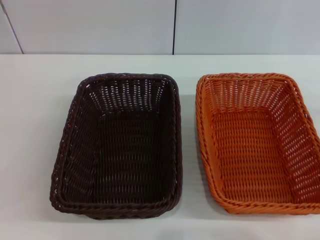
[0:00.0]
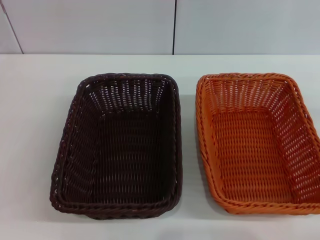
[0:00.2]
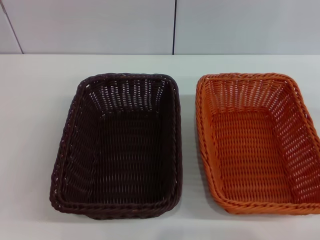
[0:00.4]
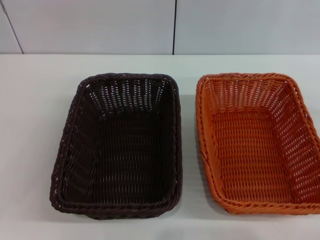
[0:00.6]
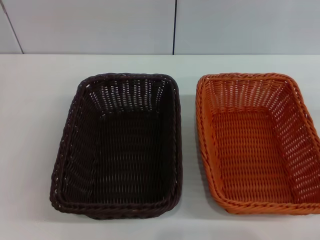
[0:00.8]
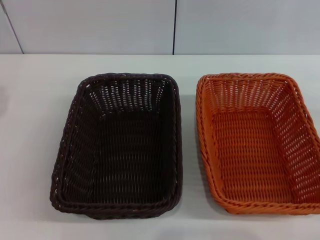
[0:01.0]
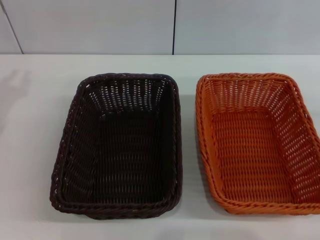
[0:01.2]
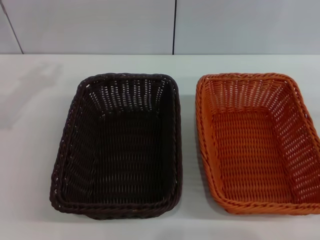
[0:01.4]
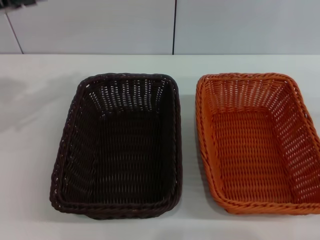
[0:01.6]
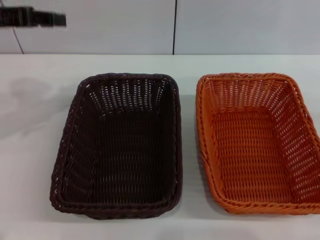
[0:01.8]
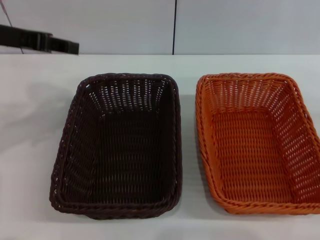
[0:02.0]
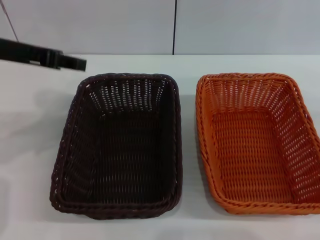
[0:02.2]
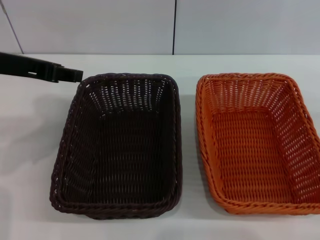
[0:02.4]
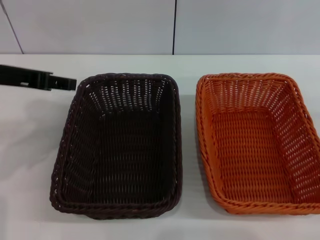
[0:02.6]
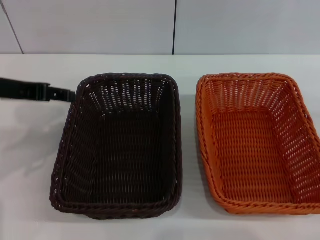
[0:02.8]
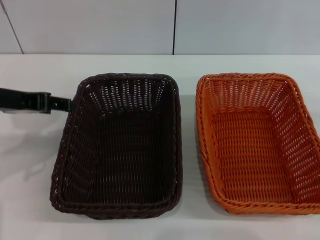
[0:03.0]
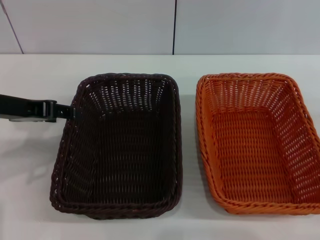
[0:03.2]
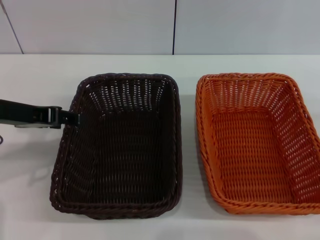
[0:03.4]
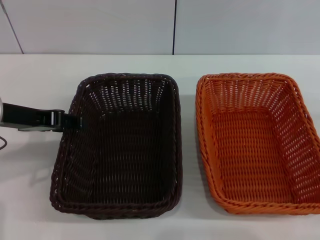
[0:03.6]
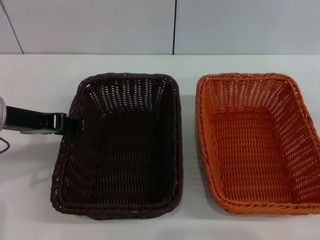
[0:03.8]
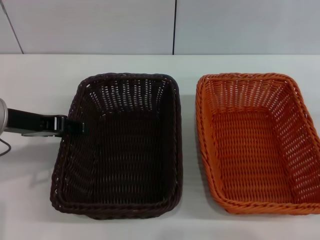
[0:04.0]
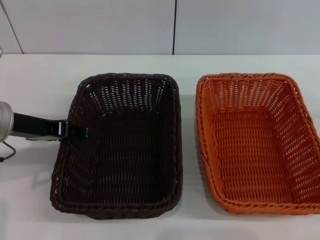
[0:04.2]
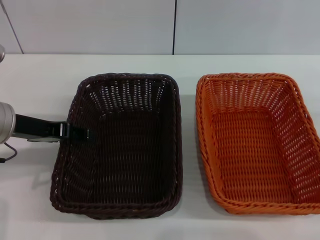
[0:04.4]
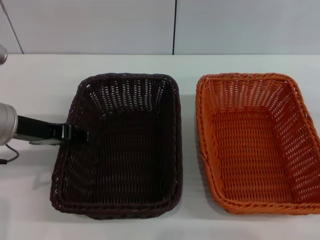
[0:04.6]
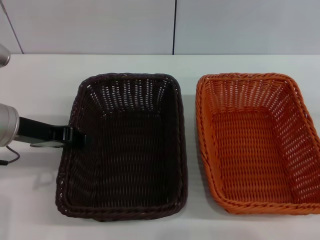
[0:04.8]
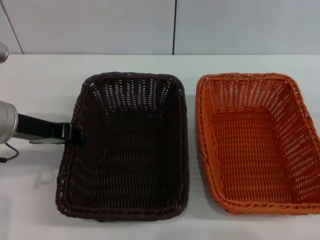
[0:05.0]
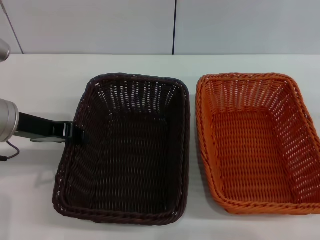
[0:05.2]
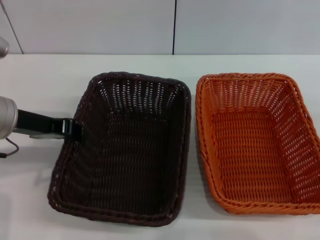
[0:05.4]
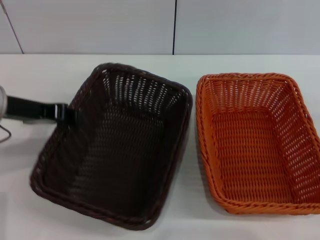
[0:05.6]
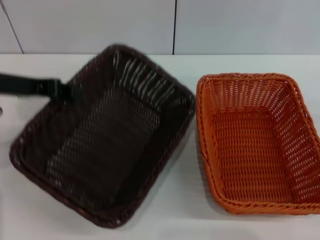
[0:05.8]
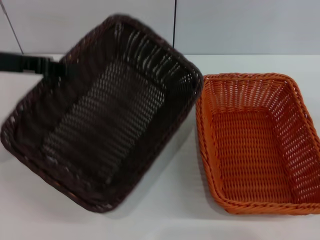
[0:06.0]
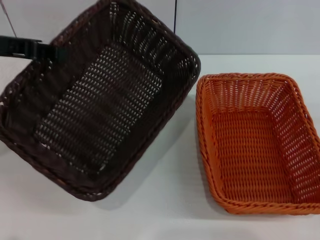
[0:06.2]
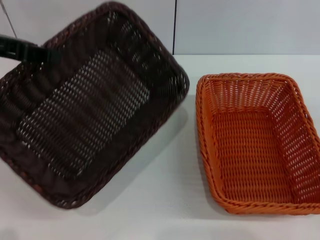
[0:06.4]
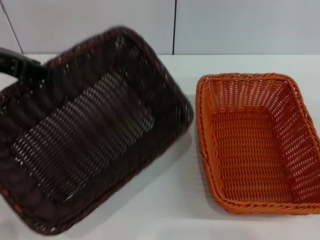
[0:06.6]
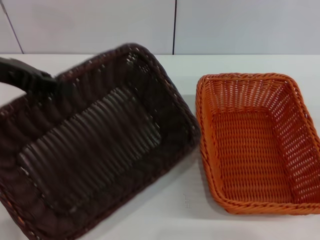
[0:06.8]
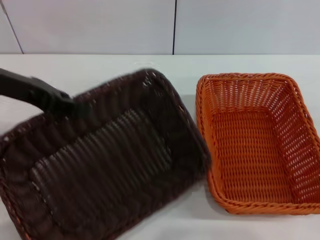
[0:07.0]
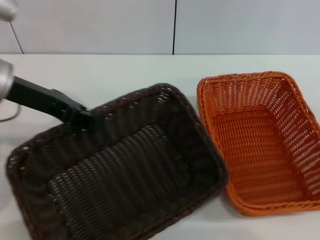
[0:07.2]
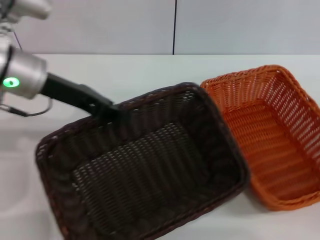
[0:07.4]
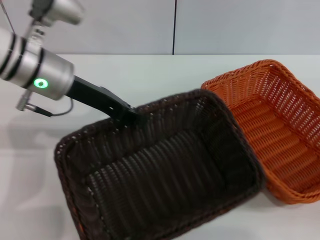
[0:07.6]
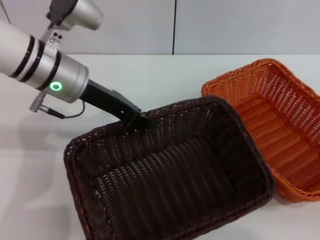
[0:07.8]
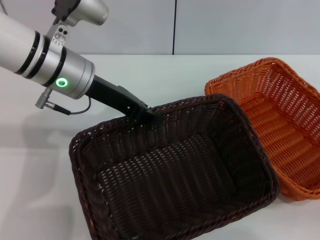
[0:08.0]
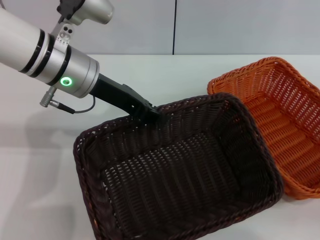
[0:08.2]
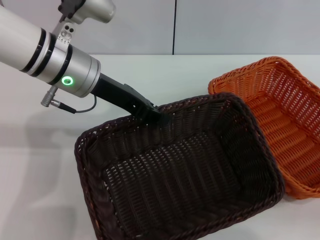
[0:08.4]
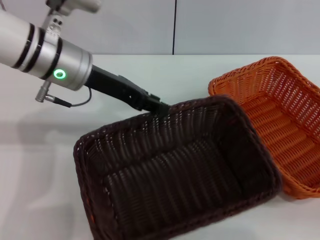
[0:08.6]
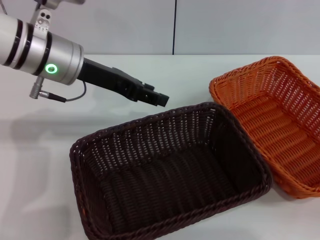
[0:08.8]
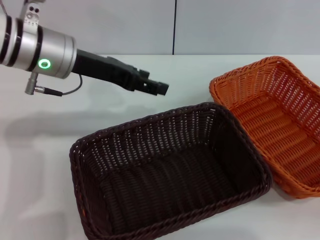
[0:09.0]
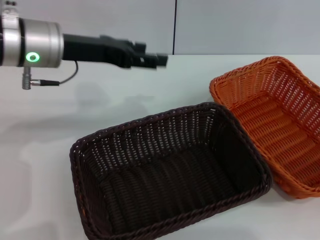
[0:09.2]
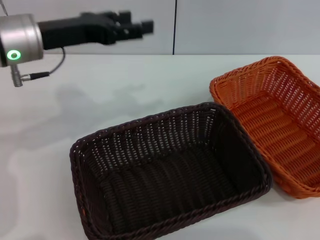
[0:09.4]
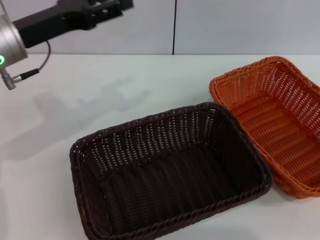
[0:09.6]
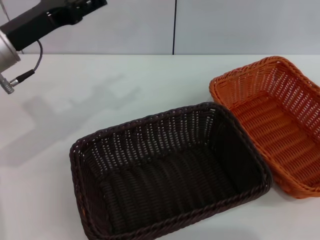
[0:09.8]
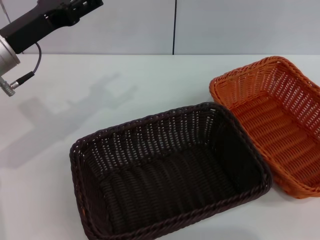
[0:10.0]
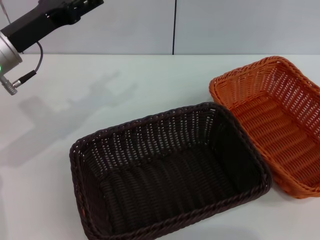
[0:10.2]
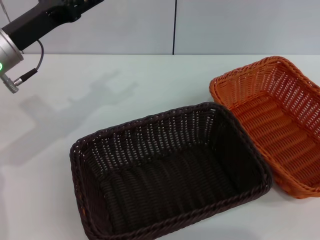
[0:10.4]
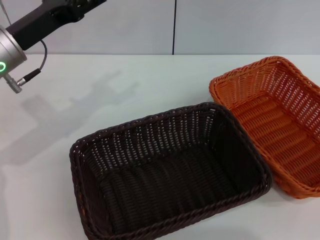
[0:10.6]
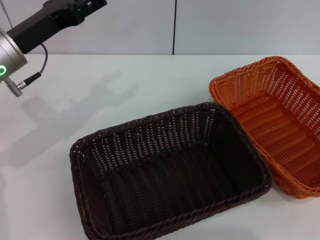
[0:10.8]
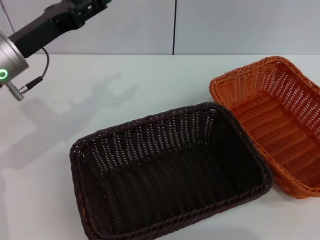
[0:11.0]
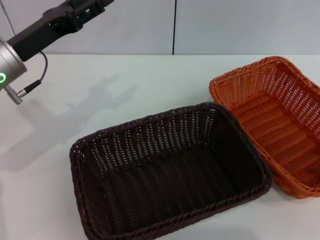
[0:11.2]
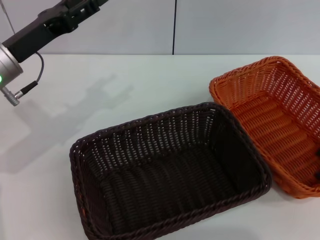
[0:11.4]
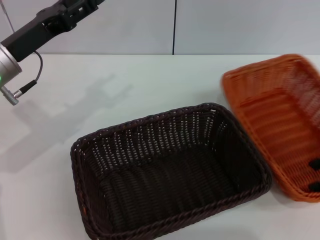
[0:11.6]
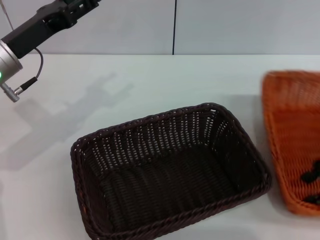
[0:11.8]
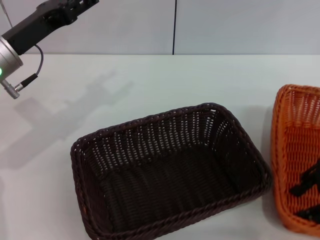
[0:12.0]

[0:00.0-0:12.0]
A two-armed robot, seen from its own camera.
Step, 0:00.0 to 0:05.8: Pick up the dark basket with the left gripper.
Step, 0:06.0 to 0:08.6: Place the dark basket in the center of view with the left gripper.
0:00.0 to 0:01.6: The left gripper moves upward and forward, roughly 20 cm.
0:01.6 to 0:03.0: The left gripper travels to the right and backward by approximately 10 cm, and opens its fingers.
0:03.0 to 0:04.4: The left gripper goes about 5 cm downward.
0:04.4 to 0:06.0: The left gripper heads upward, covering about 10 cm, and closes up.
0:06.0 to 0:07.6: The left gripper moves to the right, downward and forward, about 10 cm.
0:07.6 to 0:09.0: The left gripper opens its fingers.
0:09.0 to 0:10.4: The left gripper shifts some 5 cm to the left, and opens up. The right gripper travels upward by roughly 20 cm.
0:10.4 to 0:12.0: The right gripper goes approximately 15 cm to the left and downward.

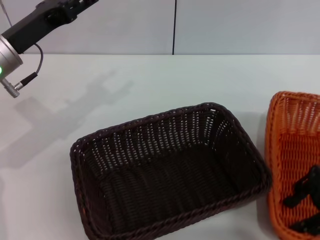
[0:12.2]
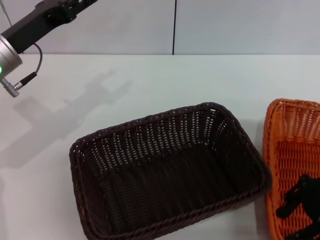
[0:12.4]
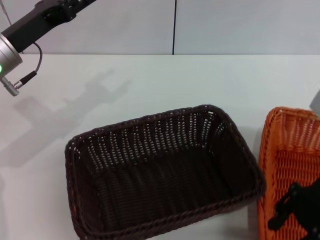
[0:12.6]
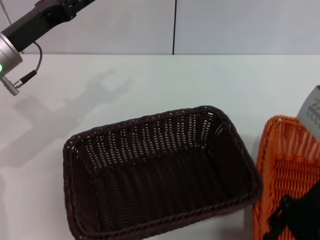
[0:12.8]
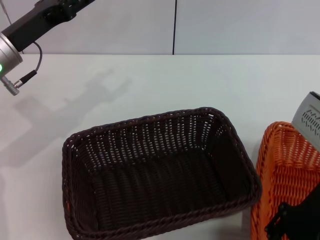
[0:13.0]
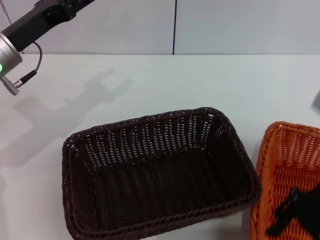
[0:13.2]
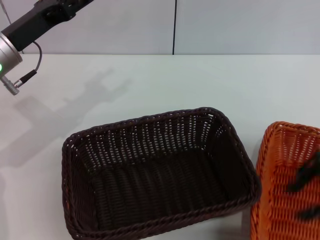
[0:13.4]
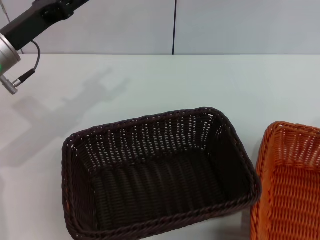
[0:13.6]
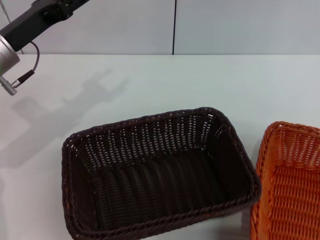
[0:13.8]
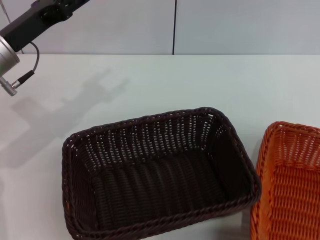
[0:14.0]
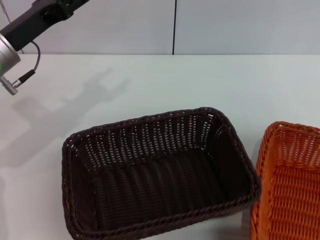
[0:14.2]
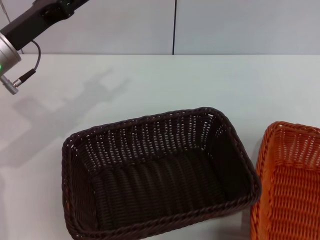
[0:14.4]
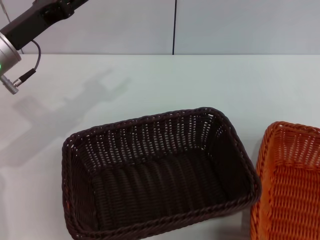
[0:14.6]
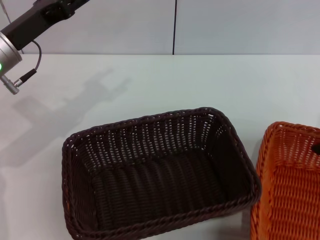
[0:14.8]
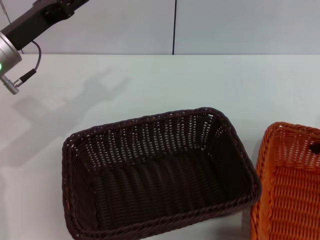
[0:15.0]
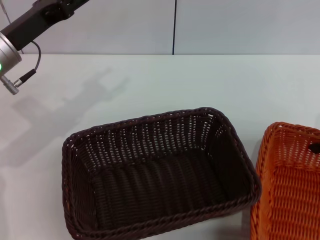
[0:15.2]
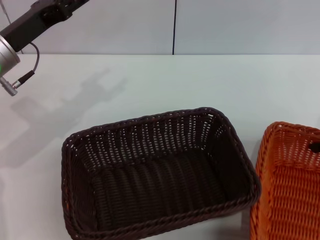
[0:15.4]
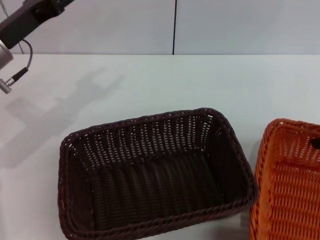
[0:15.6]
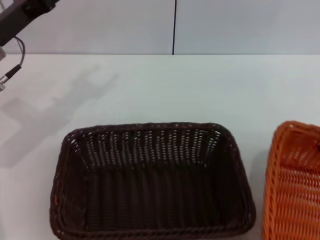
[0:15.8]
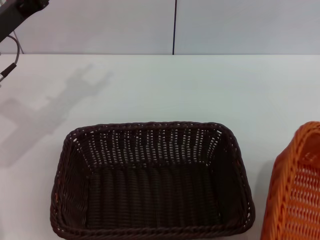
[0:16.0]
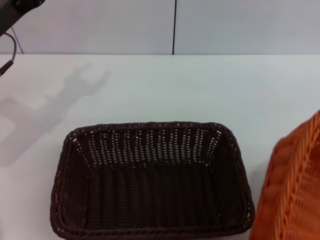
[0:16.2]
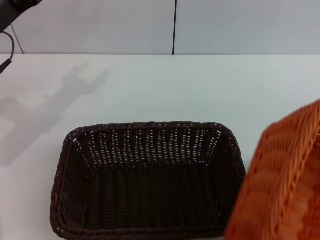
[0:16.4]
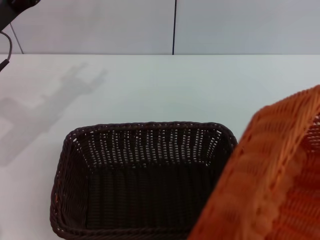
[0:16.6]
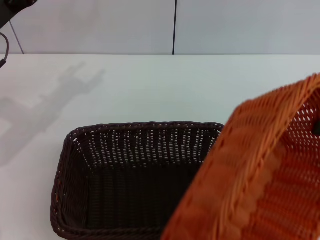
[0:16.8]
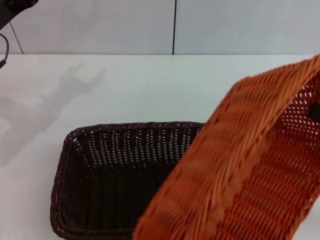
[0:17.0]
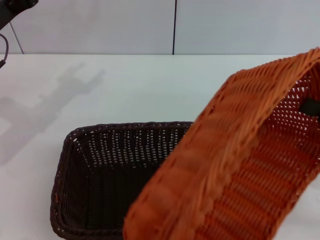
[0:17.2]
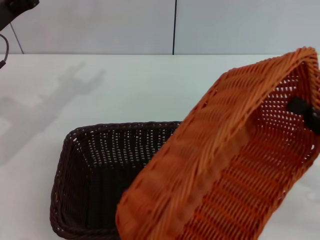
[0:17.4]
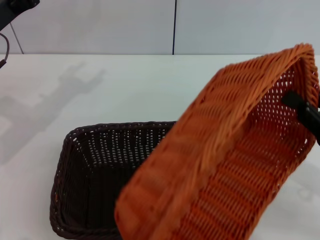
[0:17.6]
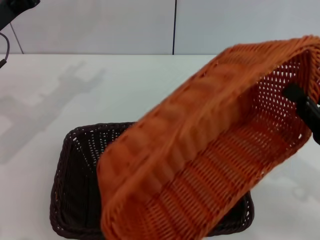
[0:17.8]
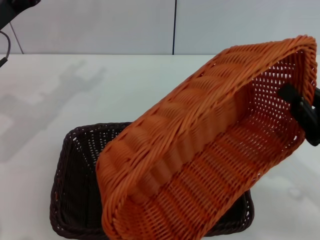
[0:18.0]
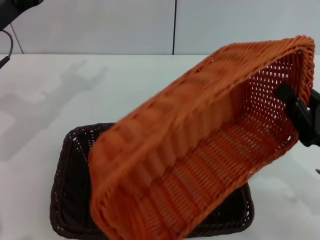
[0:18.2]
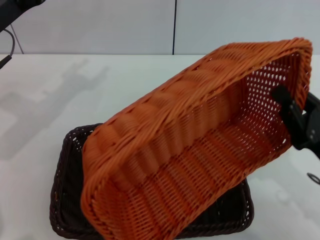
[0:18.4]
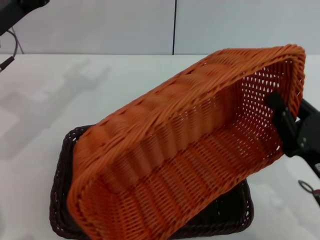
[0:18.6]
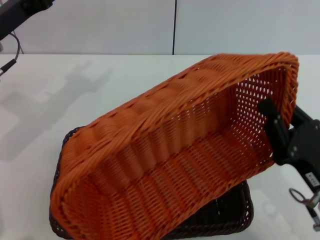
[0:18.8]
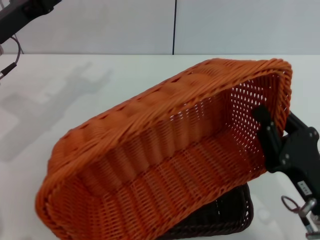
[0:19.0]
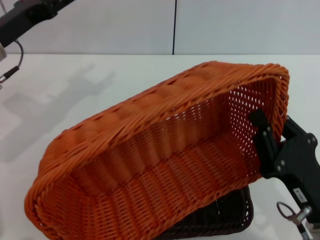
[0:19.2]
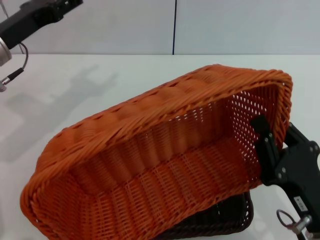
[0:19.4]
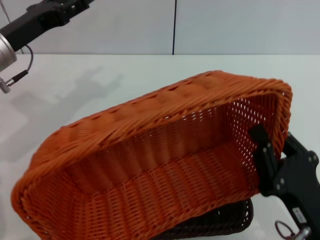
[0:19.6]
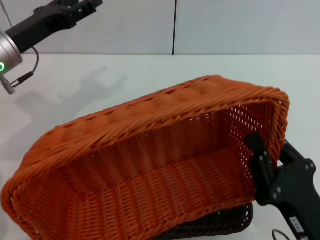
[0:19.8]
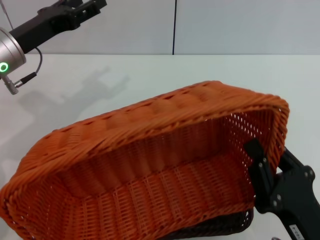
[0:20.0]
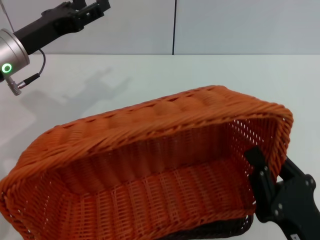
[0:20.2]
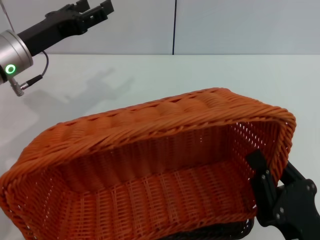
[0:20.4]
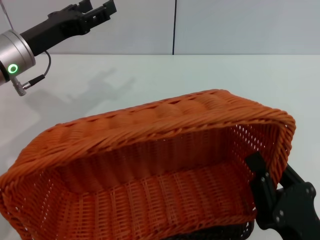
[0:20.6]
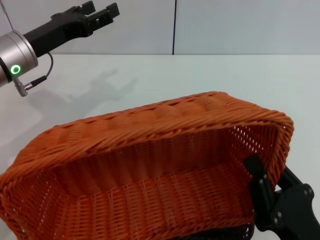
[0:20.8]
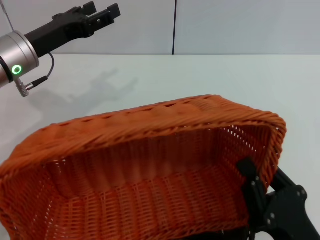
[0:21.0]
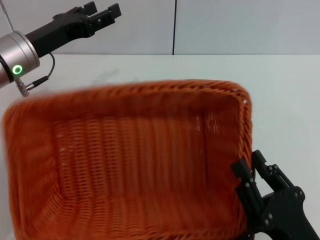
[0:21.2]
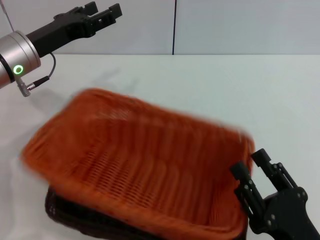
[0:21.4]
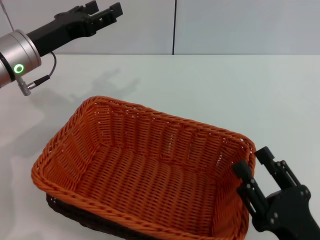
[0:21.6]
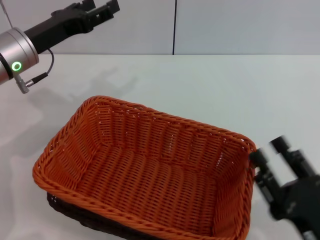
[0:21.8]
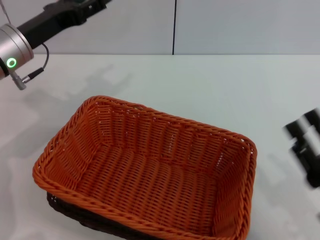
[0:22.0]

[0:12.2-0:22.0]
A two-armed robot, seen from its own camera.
Step, 0:12.2 to 0:15.2: Pick up the light basket with the right gripper.
Step, 0:15.4 to 0:21.4: Place the light basket on the dark basket with the right gripper.
0:12.2 to 0:13.6: The right gripper moves upward, roughly 10 cm.
0:15.0 to 0:16.4: The right gripper heads backward, covering approximately 10 cm, and closes up.
0:16.4 to 0:17.8: The right gripper is displaced downward and to the left by approximately 15 cm.
0:17.8 to 0:19.2: The right gripper heads to the left and backward, covering some 10 cm.
0:19.2 to 0:20.6: The right gripper goes roughly 5 cm backward.
0:20.6 to 0:22.0: The right gripper goes approximately 10 cm to the right and forward, and opens up.
